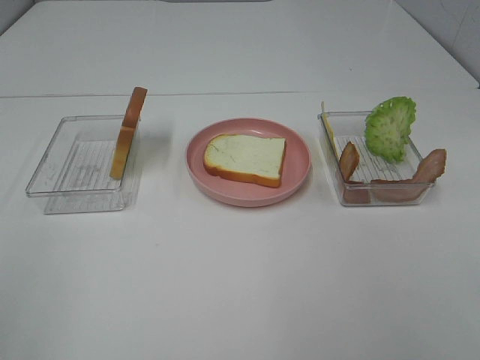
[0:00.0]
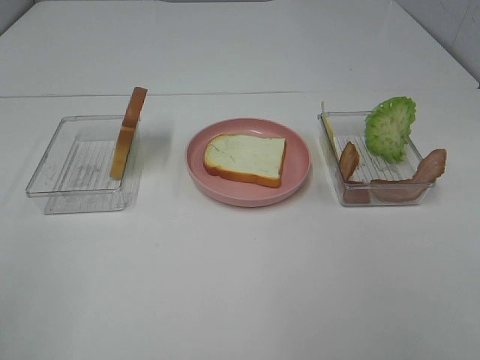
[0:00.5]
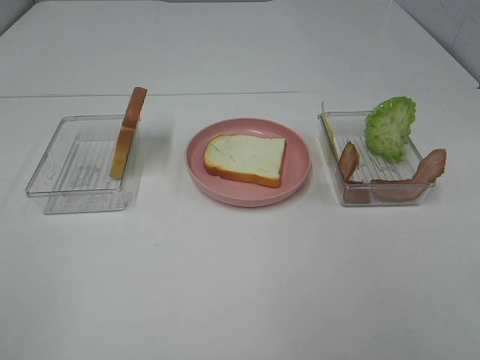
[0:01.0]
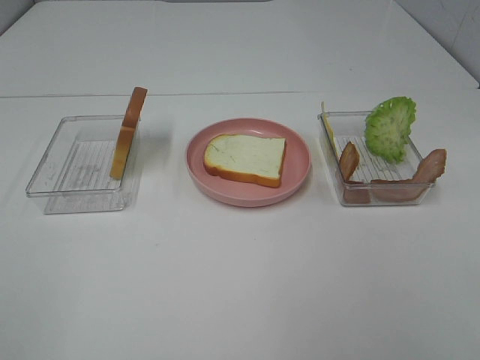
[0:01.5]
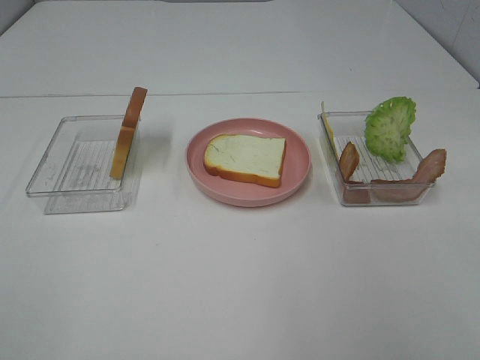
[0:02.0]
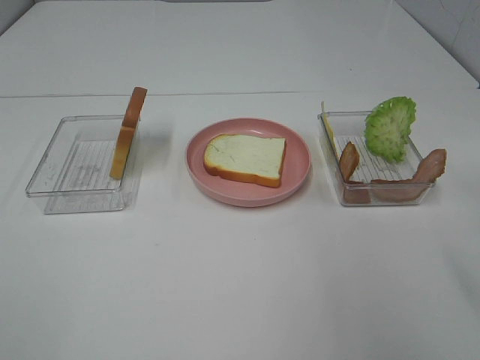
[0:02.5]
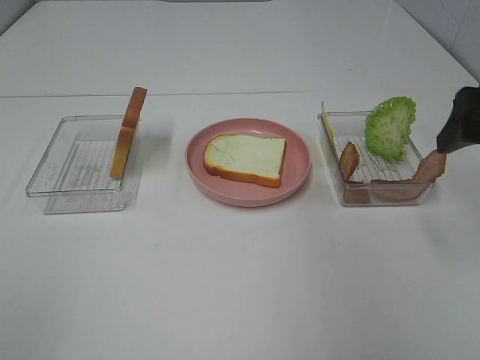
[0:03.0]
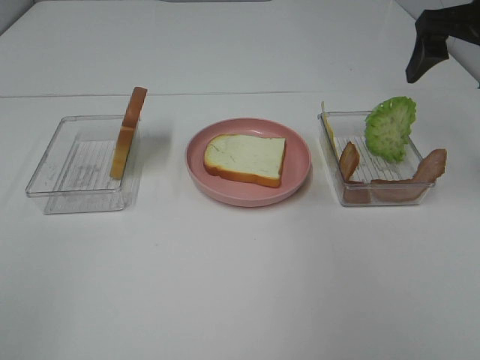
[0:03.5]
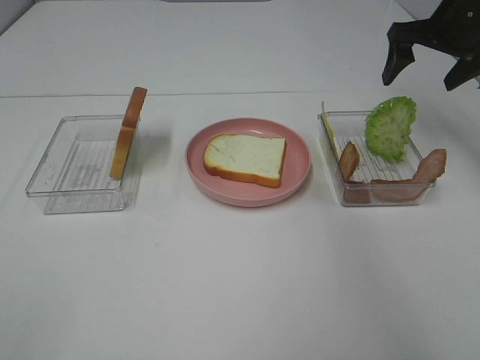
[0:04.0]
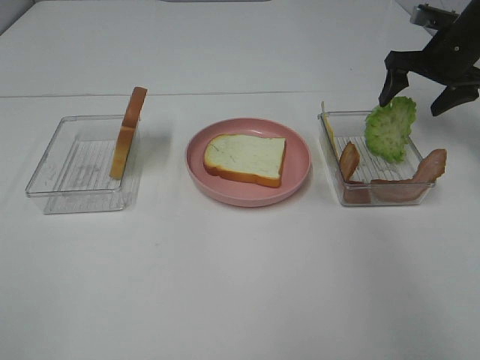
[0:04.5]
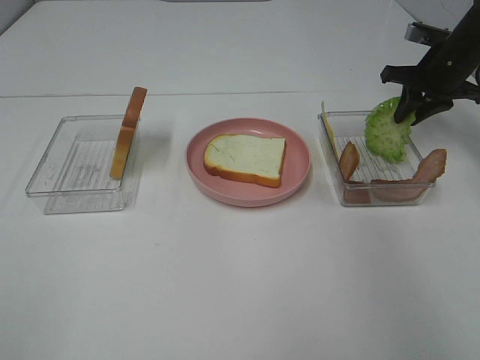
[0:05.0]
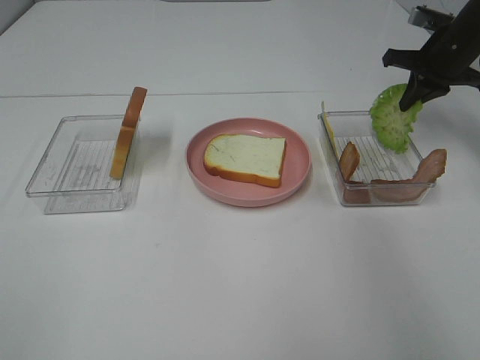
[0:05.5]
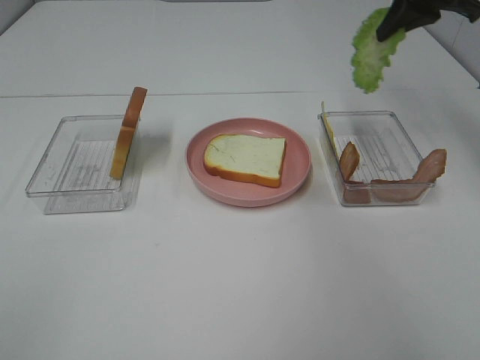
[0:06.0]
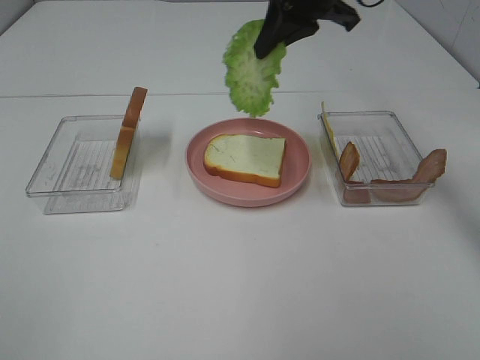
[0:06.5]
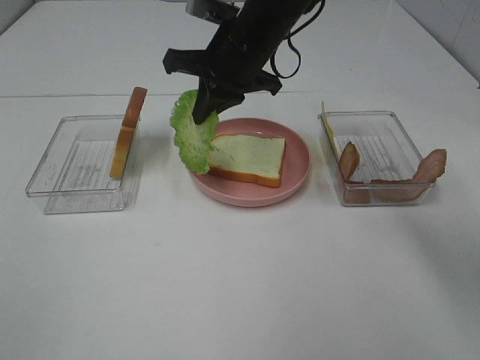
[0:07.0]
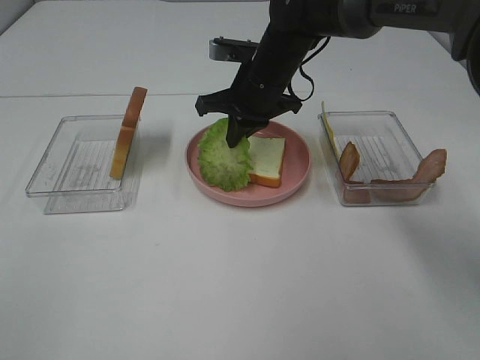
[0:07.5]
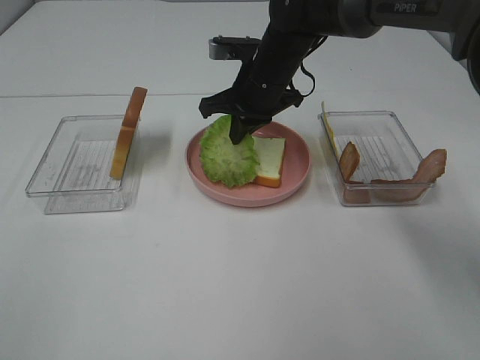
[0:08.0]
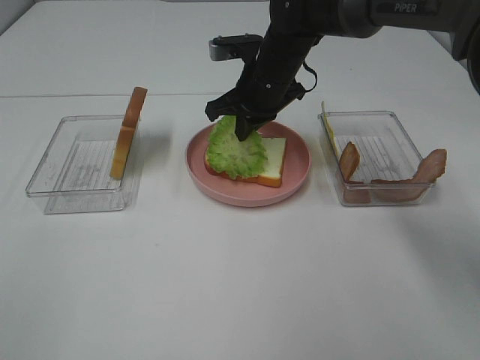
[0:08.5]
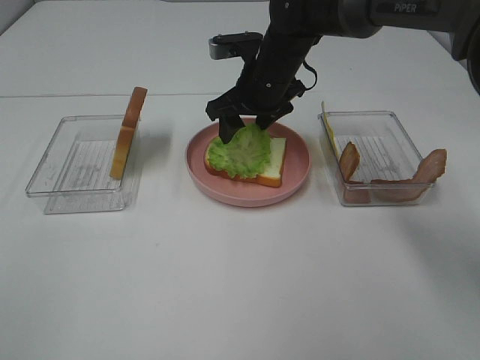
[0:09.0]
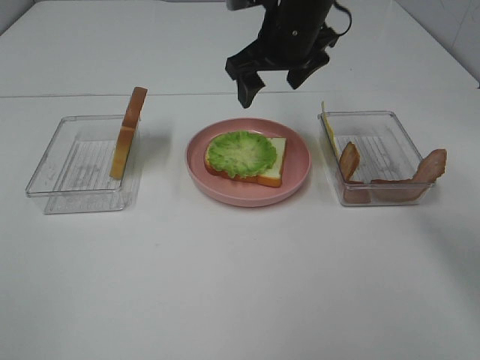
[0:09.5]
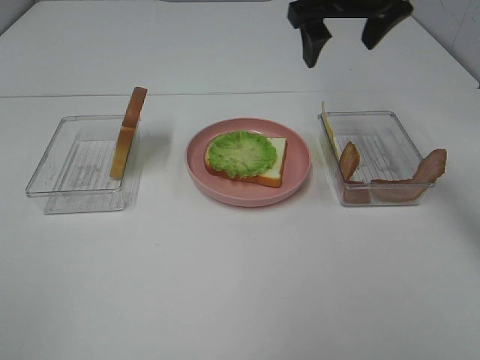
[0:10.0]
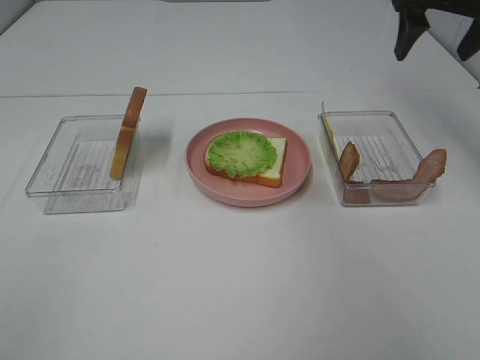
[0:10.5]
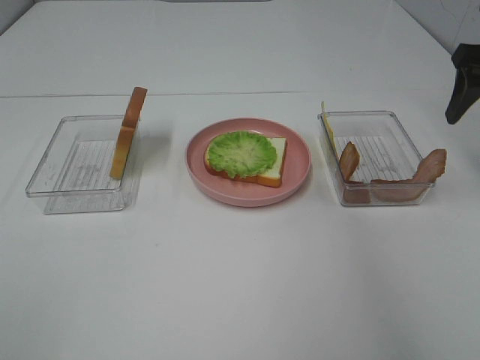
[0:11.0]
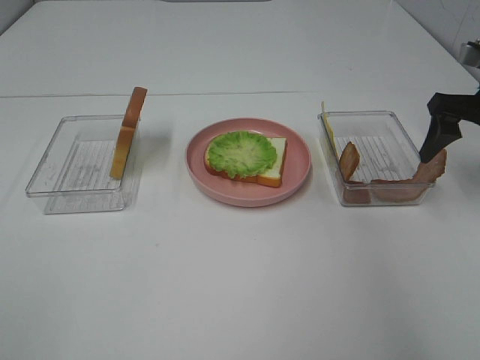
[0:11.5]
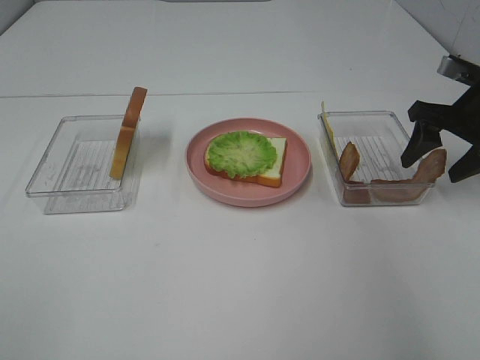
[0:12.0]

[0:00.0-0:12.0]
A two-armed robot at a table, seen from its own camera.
Task of the whole recording: Make sandwiches.
Step, 0:00.0 to 0:05.0: Right hand:grab the lettuce slice.
Step, 0:05.5 to 0:09.0: Right hand:place the lettuce slice on the bread slice.
0:02.0 to 0:04.0: The right gripper heads forward, covering some 40 cm.
0:04.0 to 0:06.0: The right gripper goes approximately 10 cm upward and to the left, and closes its fingers.
0:06.0 to 0:08.0: The right gripper is displaced to the left and downward by about 25 cm.
0:08.0 to 0:10.0: The right gripper goes roughly 15 cm upward and to the right, and opens up.
0:10.0 to 0:12.0: The right gripper moves to the right and downward, roughly 20 cm.

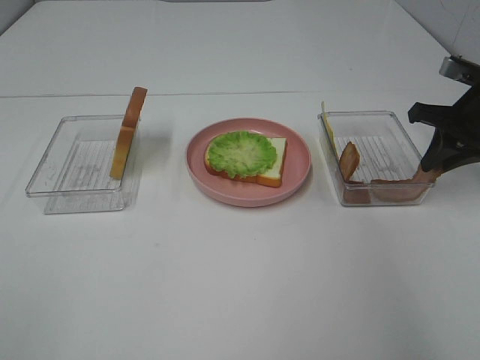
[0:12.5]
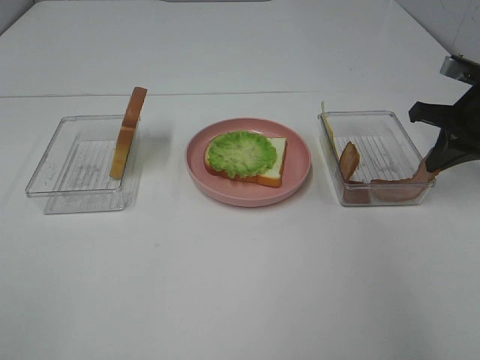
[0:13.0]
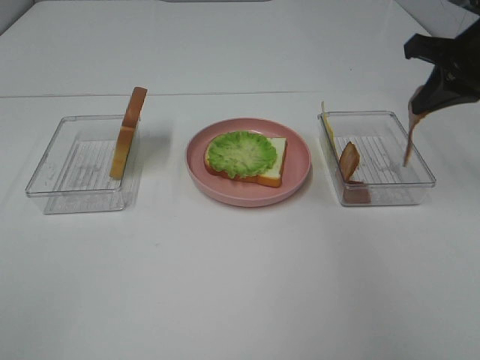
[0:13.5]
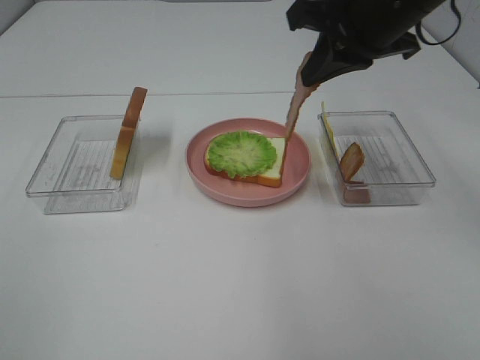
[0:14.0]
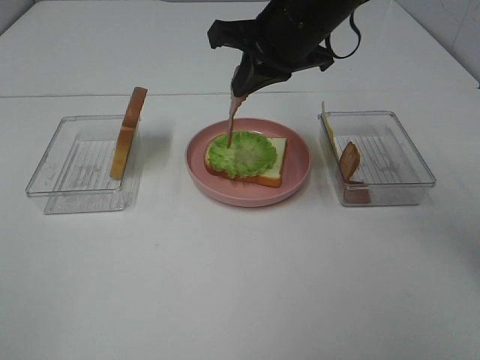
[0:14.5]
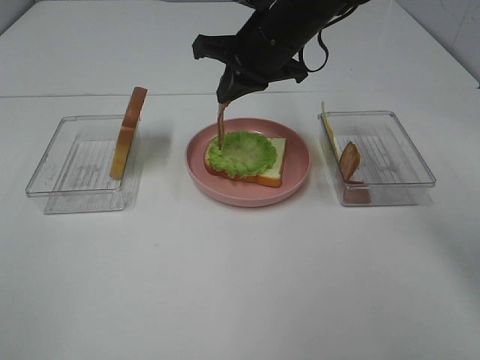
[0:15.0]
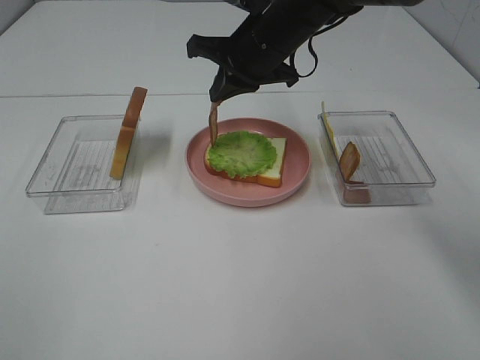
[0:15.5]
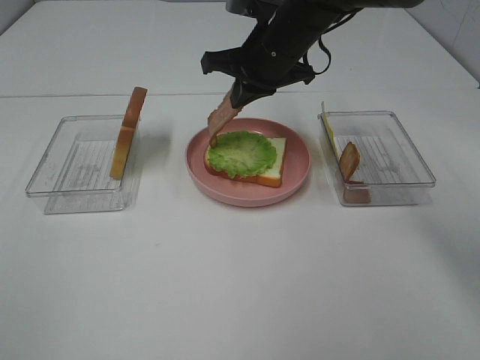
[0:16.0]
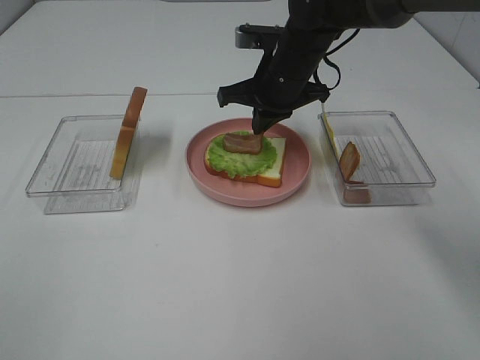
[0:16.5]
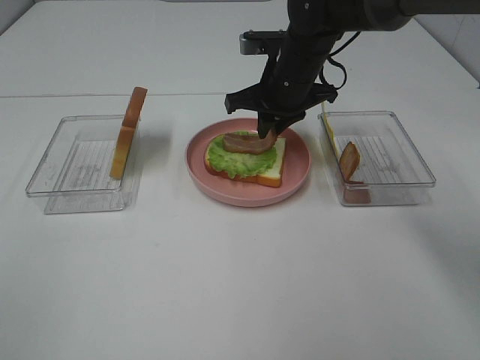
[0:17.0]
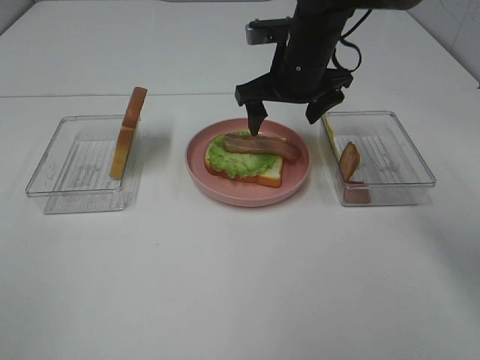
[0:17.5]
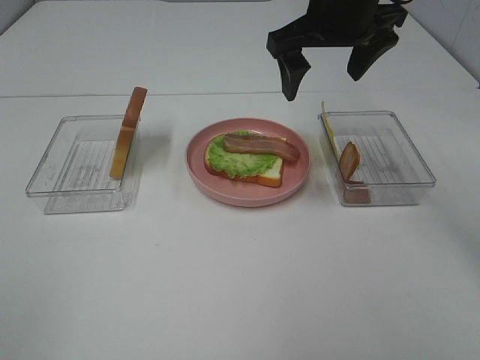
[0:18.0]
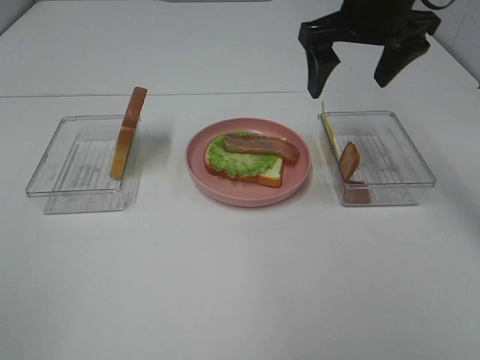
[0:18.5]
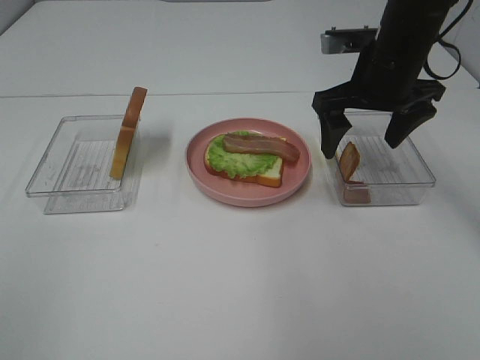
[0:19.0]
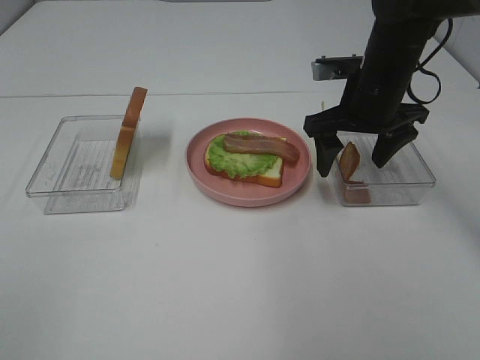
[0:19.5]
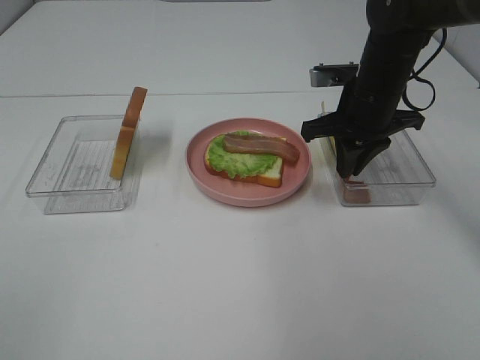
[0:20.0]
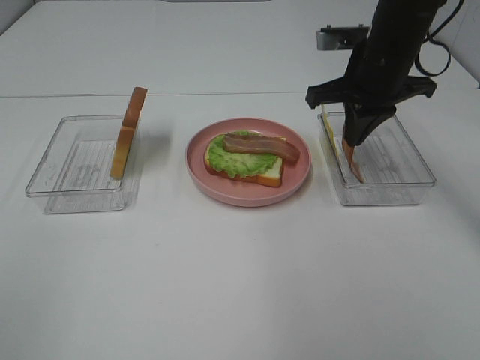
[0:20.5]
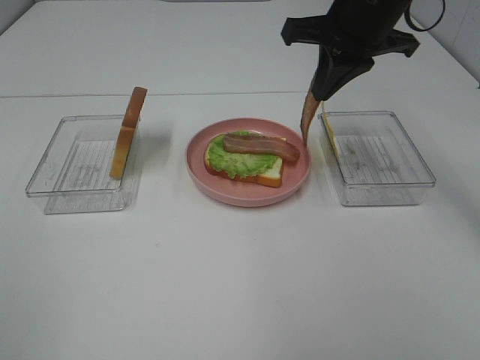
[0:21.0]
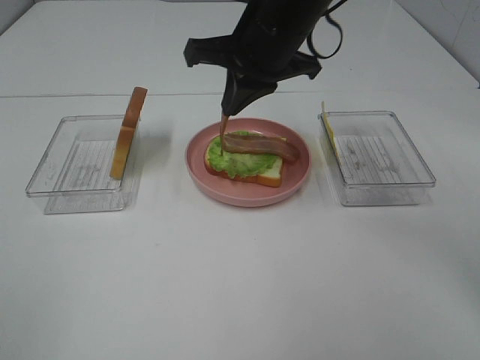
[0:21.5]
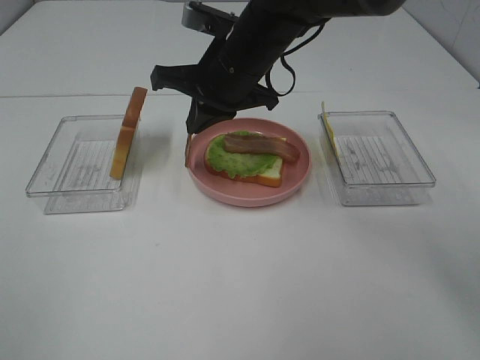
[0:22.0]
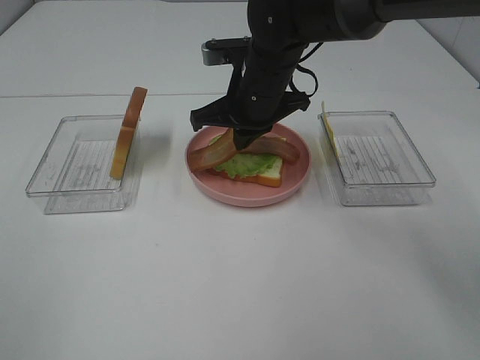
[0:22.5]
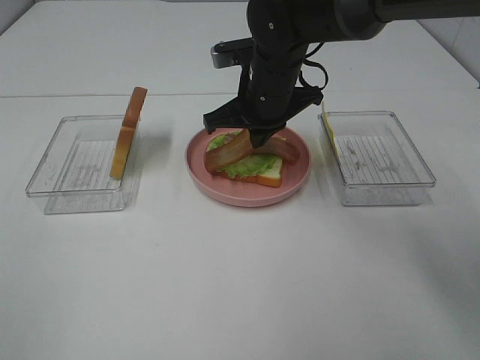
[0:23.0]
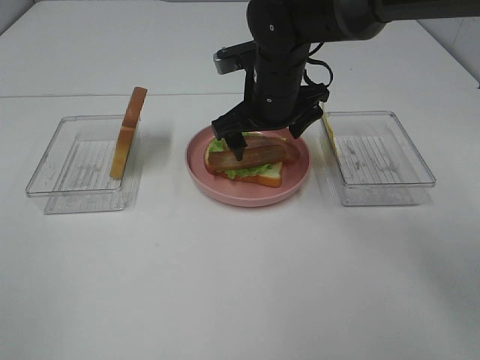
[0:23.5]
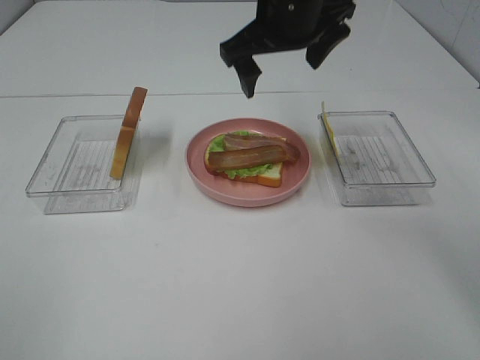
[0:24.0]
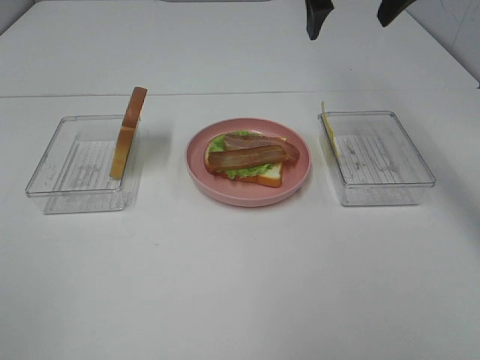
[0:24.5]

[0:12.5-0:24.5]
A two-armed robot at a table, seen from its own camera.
Task of the whole recording: Make sandwiches.
Step, 0:13.0 to 0:17.5: Right hand:place bacon on lettuce slice.
Step, 0:18.0 to 0:19.5: Right hand:grab the bacon.
Step, 0:20.0 to 0:23.5: Right hand:place bacon on bacon.
0:12.5 to 0:14.5: The right gripper is displaced to the left by approximately 25 cm.
0:14.5 to 0:16.5: The right gripper goes approximately 10 cm downward and forward.
0:16.5 to 0:18.5: The right gripper moves upward and to the right, approximately 15 cm, and opens its fingers.
0:18.5 to 0:20.5: The right gripper shifts about 5 cm downward, and closes.
0:20.5 to 0:22.5: The right gripper shifts some 15 cm to the left.
0:22.5 to 0:24.5: The right gripper moves upward and to the right, about 20 cm, and opens its fingers.

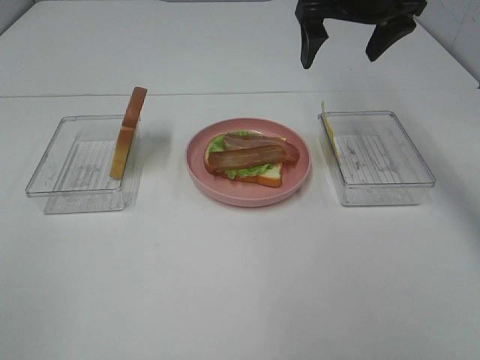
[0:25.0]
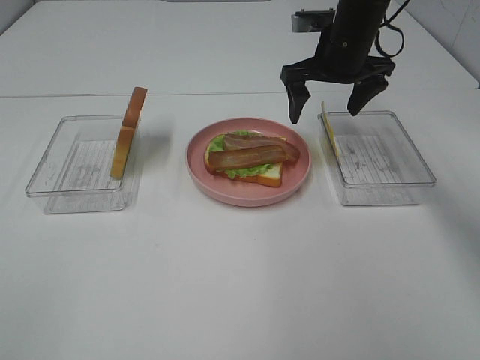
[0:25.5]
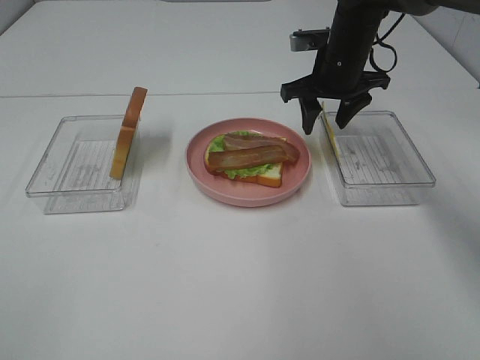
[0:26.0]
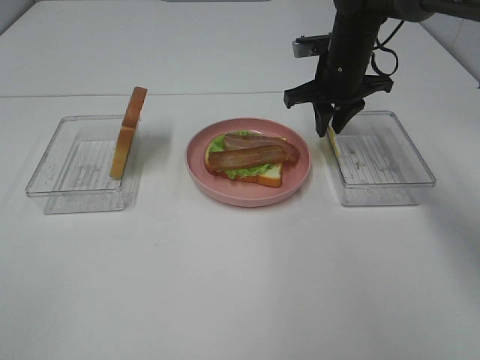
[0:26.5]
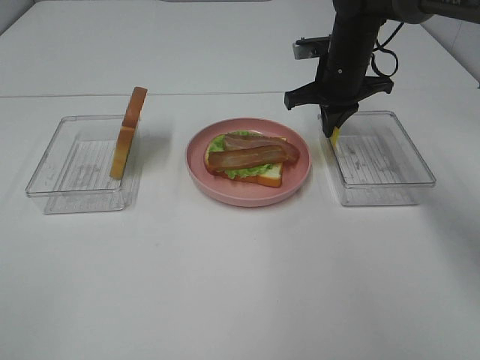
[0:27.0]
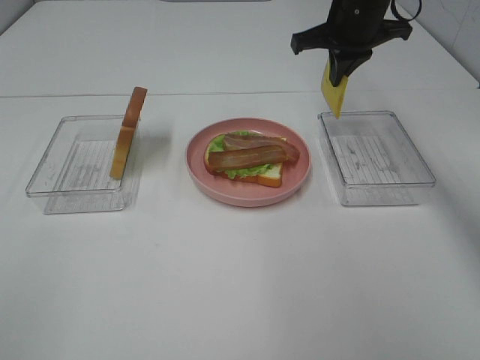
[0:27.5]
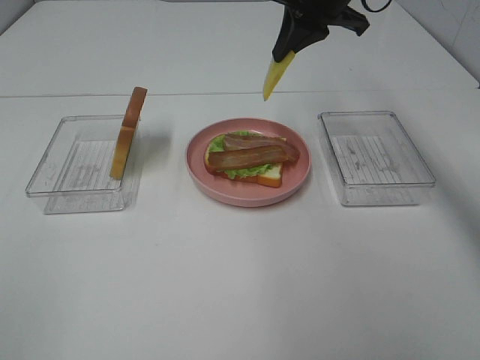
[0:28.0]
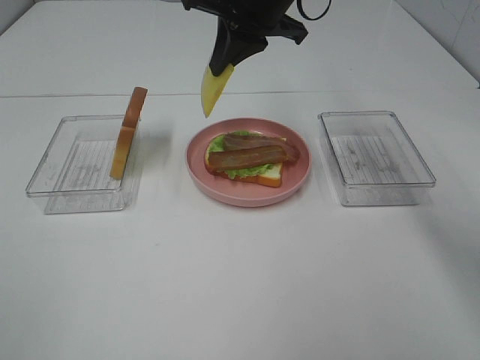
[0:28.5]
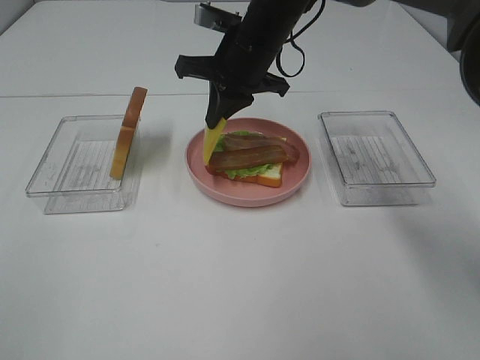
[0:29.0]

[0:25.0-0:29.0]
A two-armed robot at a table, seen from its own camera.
Task of the whole recording: Make sandwiches.
Step, 0:25.0 to 0:26.5: Right hand:grab the cheese slice.
0:25.0 to 0:27.0: The right gripper is displaced downward by roughly 10 cm, and closes.
0:27.0 to 0:29.0: The right gripper shifts some 15 cm to the left.
